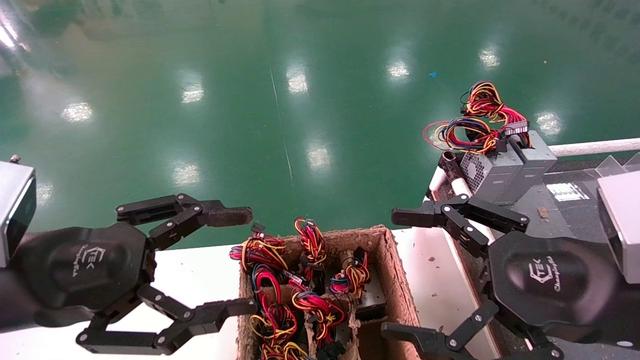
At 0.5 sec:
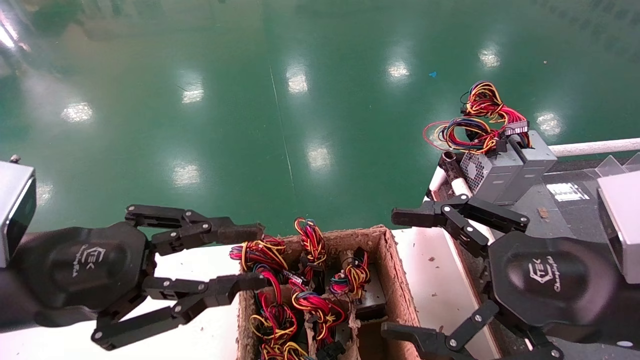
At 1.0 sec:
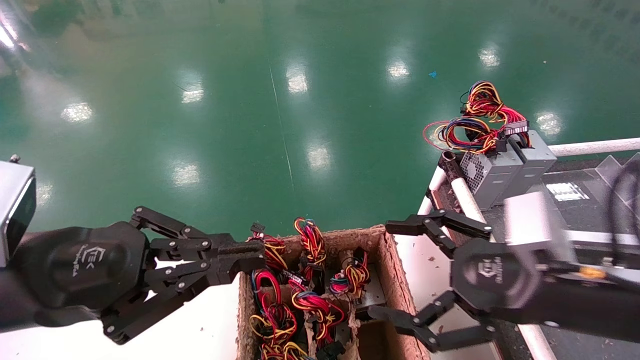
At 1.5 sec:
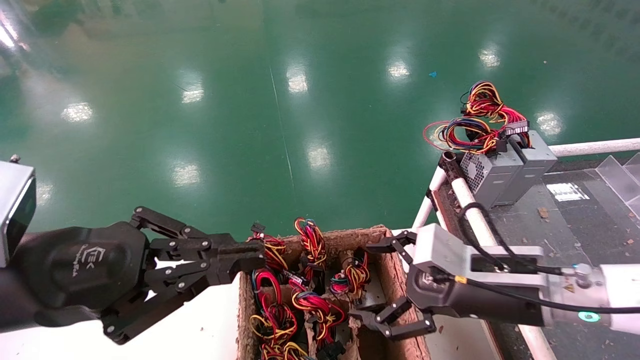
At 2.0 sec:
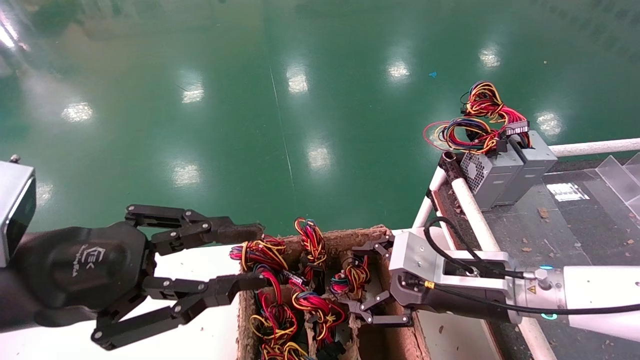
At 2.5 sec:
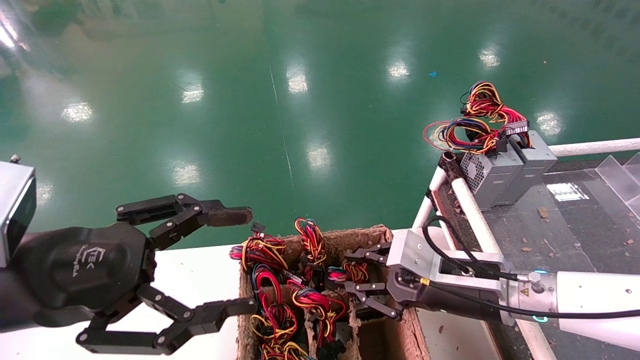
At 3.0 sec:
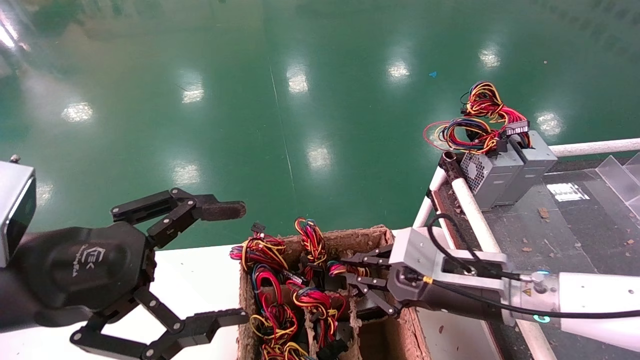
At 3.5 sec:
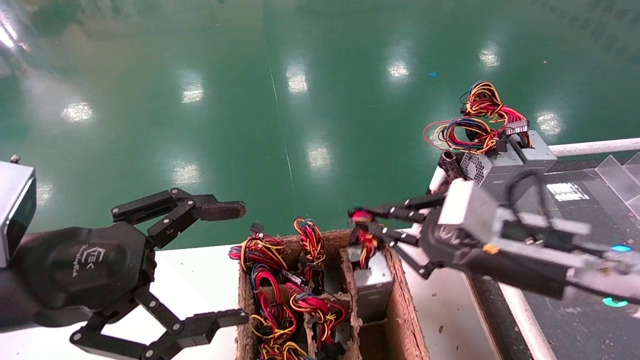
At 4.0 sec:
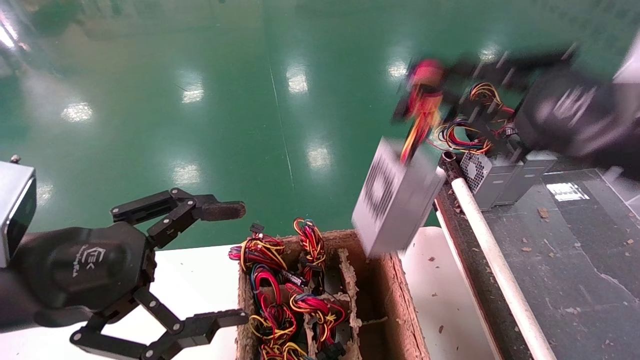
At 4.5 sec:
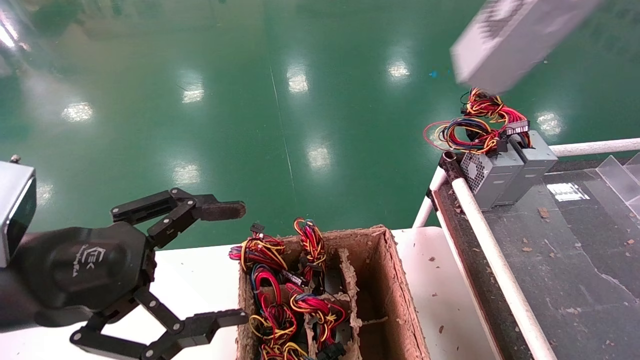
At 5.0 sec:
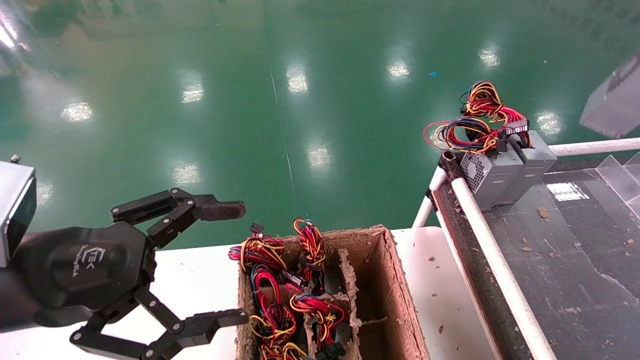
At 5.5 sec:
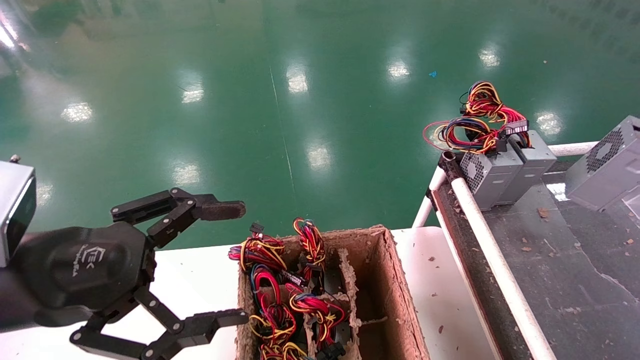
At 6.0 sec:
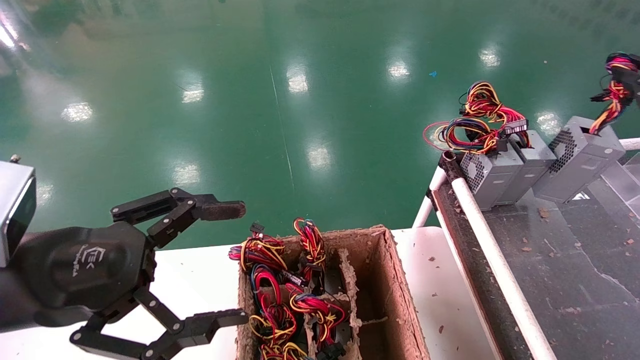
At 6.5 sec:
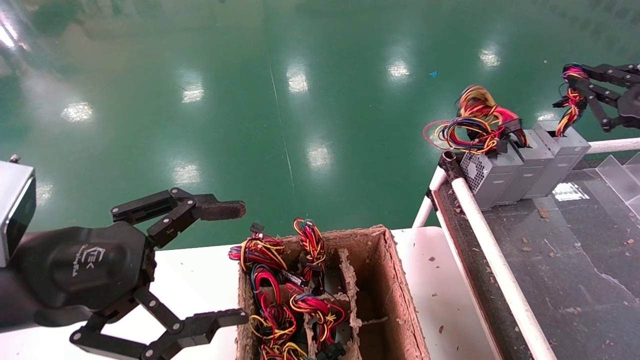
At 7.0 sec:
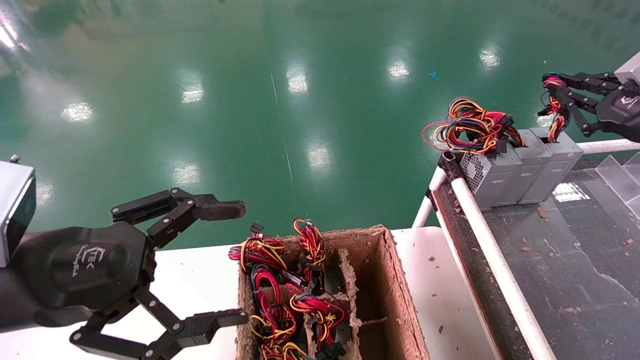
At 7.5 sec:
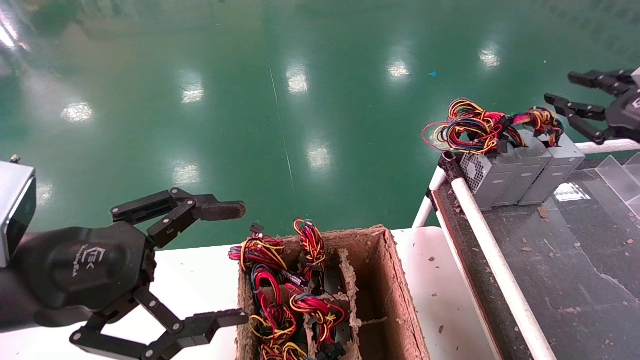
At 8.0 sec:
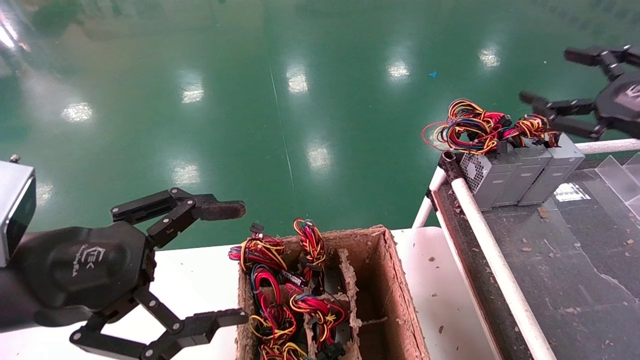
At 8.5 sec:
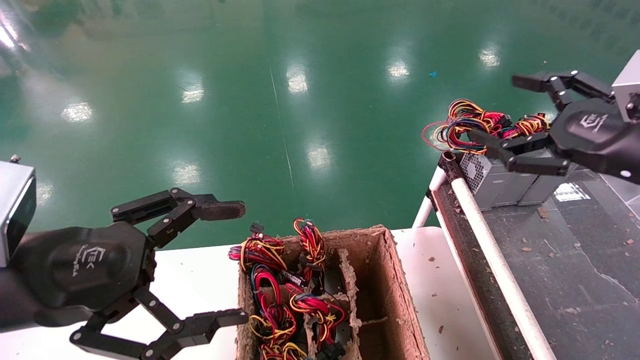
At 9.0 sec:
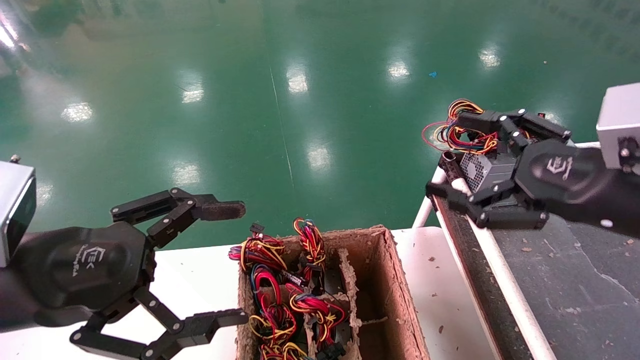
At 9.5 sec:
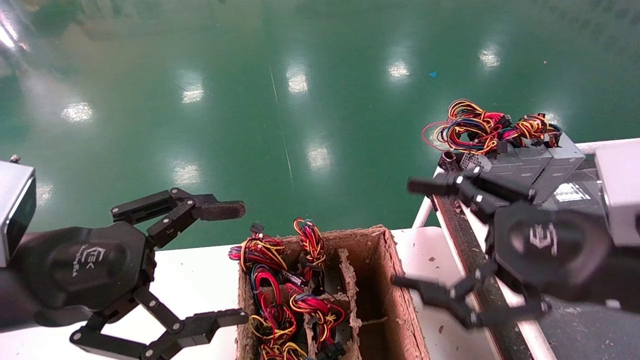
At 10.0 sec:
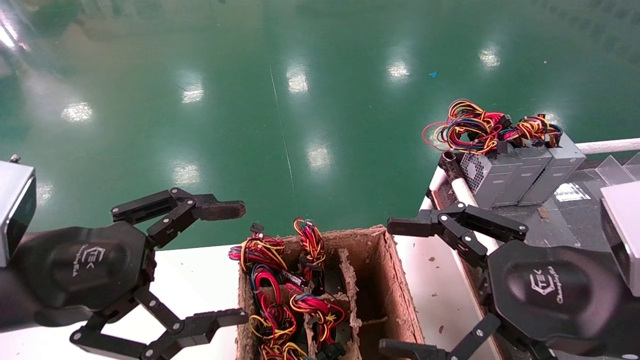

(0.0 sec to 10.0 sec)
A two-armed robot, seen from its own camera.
Step, 1.0 sec - 2.5 sec: Grab and lift the power supply from the large box.
Step, 3.0 sec - 7.0 sec: Place the power supply on the operating table.
0.0 sec - 2.0 sec: The left gripper closes; the right gripper goes roughly 15 cm forward, downward and to the left.
2.0 sec - 4.0 sec: The left gripper opens up. The right gripper is displaced upward, backward and to the right by some 20 cm, and closes.
4.0 sec - 6.0 sec: The right gripper moves to the right, roughly 20 cm.
6.0 sec - 8.0 sec: The right gripper is displaced to the left by roughly 5 cm, and opens.
8.0 sec - 10.0 sec: The right gripper shifts about 20 cm to the left, backward and downward, and opens its fingers.

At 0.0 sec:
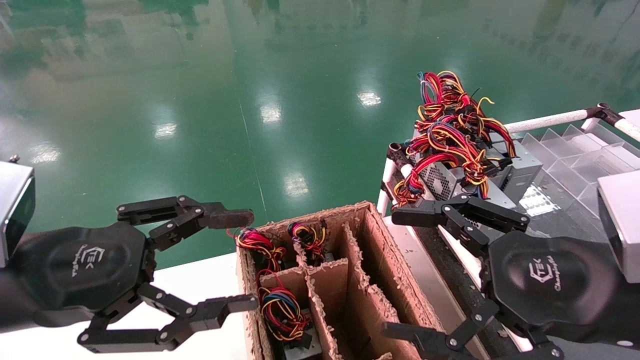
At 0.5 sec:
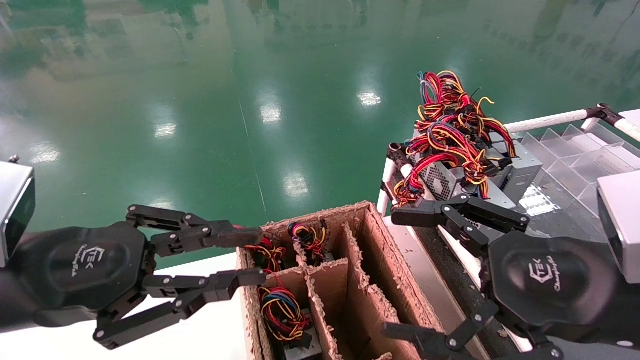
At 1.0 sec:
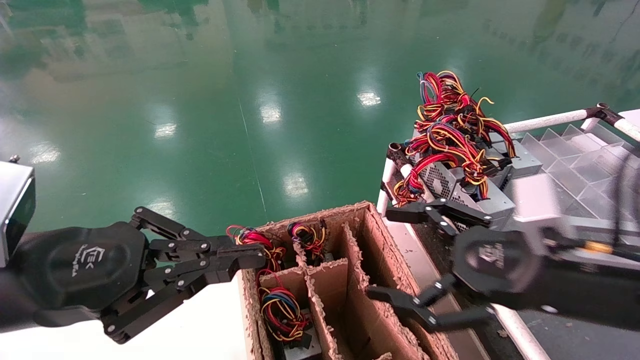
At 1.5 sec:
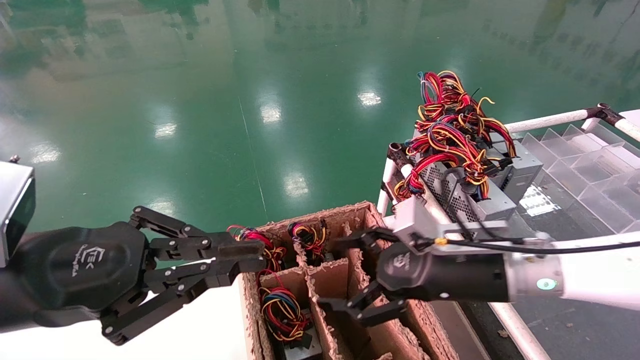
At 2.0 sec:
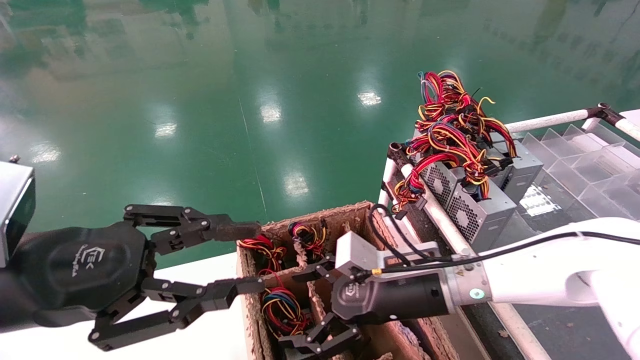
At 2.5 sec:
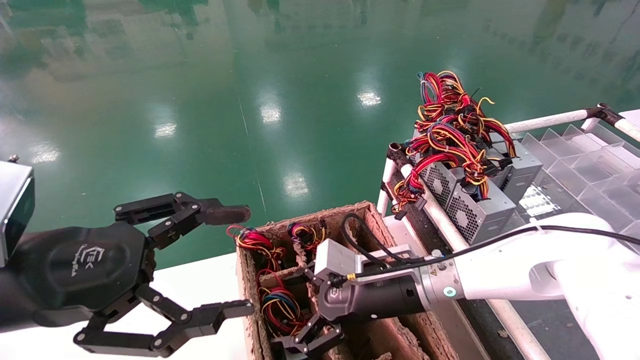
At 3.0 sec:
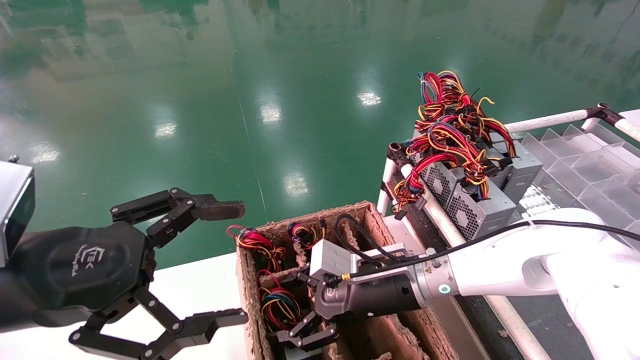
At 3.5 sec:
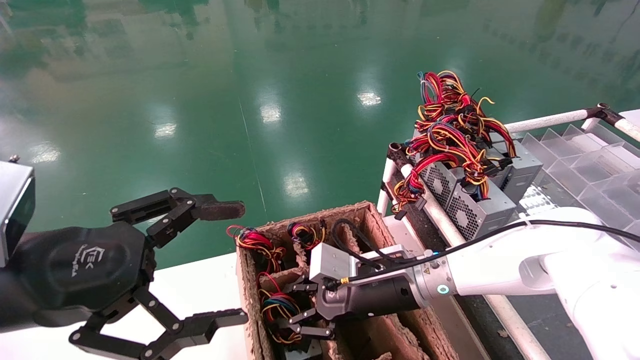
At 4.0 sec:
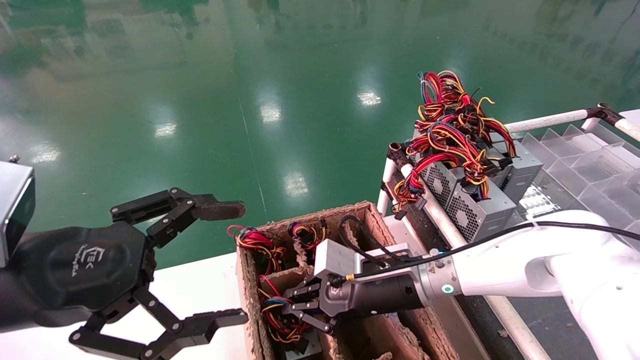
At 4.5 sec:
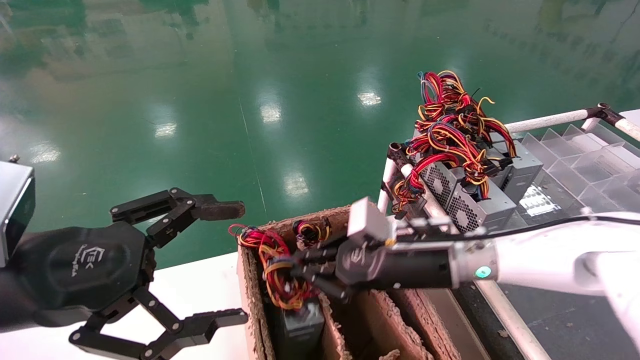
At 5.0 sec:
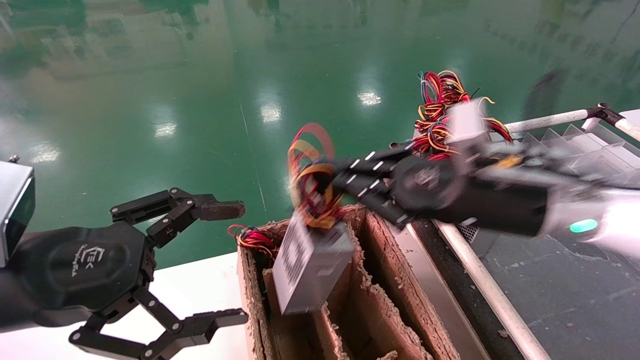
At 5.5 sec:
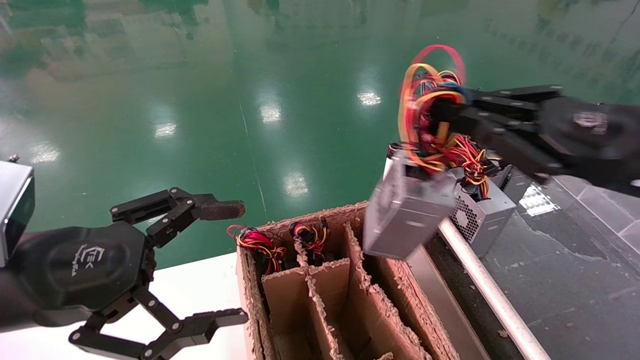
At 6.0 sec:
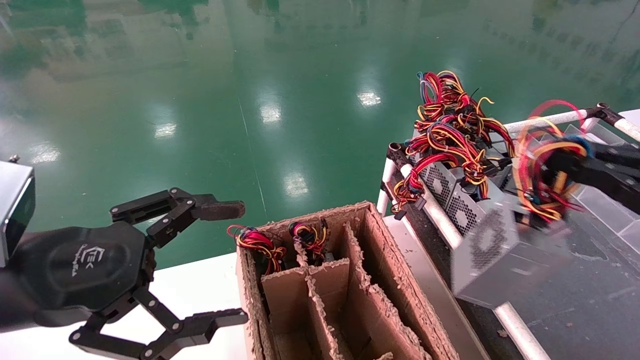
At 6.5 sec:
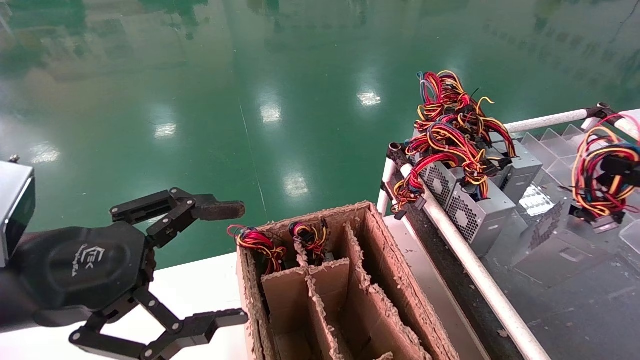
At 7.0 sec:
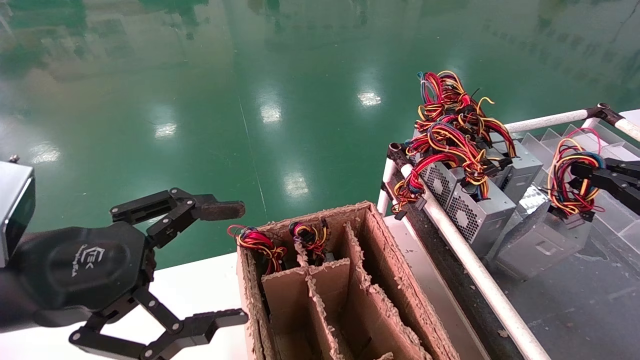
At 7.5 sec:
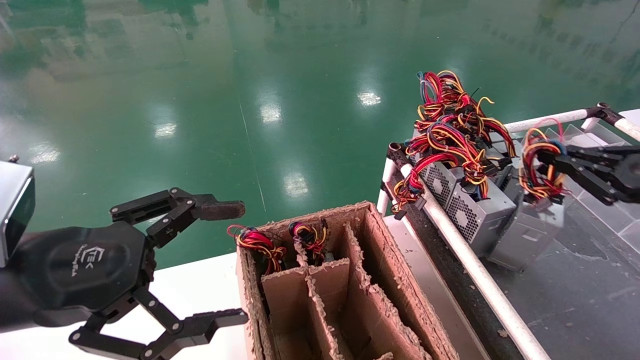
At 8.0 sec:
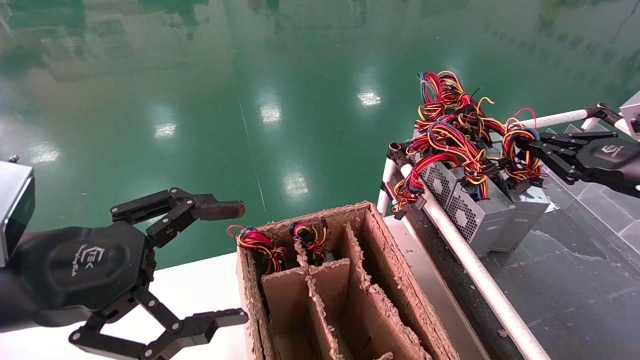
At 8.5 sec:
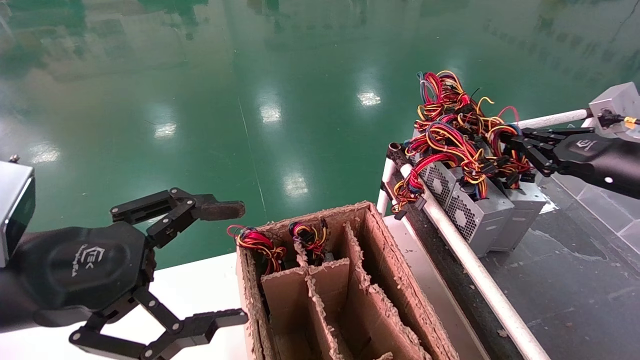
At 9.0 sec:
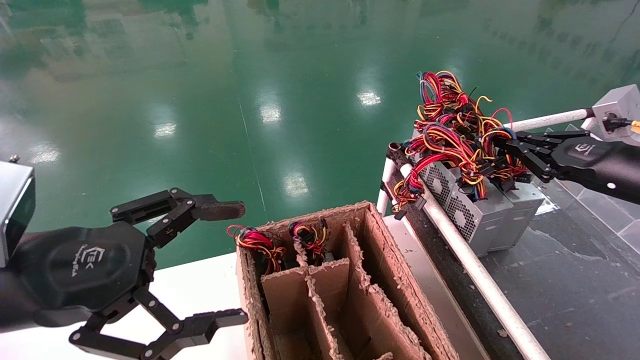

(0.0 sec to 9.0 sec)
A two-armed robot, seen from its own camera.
Step, 1.5 sec - 4.0 sec: Grab and lift the power supply from the large box.
0.0 sec - 2.0 sec: The right gripper moves forward, to the left and downward, about 25 cm. The left gripper closes up.
2.0 sec - 4.5 sec: The left gripper opens its fingers. Meanwhile the right gripper closes.
4.5 sec - 7.0 sec: The right gripper heads to the right, covering some 35 cm.
7.0 sec - 9.0 sec: The right gripper is displaced forward and to the left by approximately 10 cm.

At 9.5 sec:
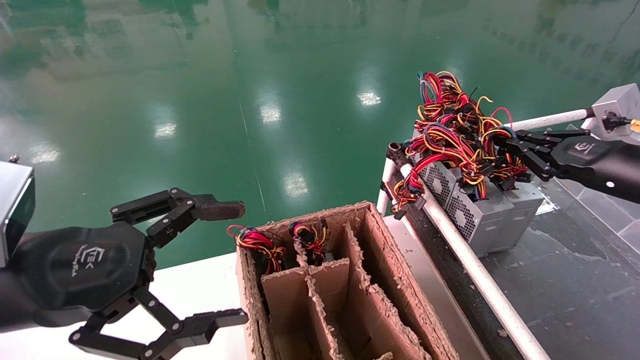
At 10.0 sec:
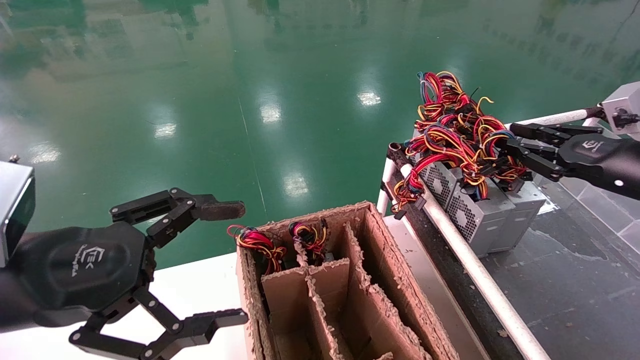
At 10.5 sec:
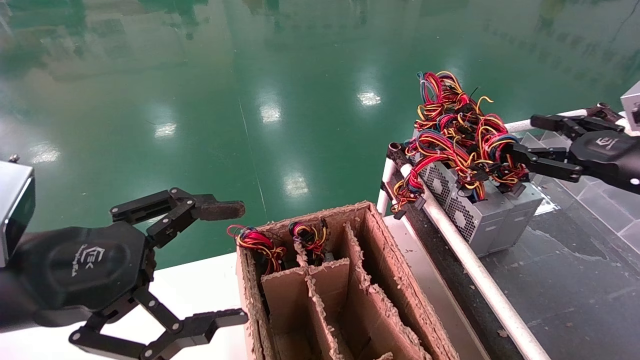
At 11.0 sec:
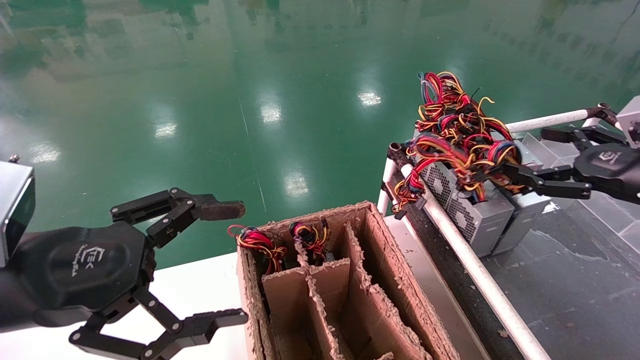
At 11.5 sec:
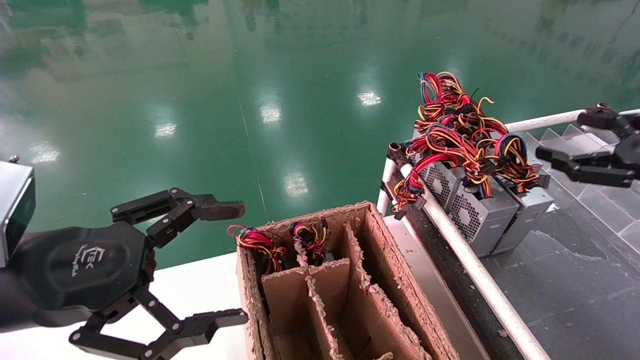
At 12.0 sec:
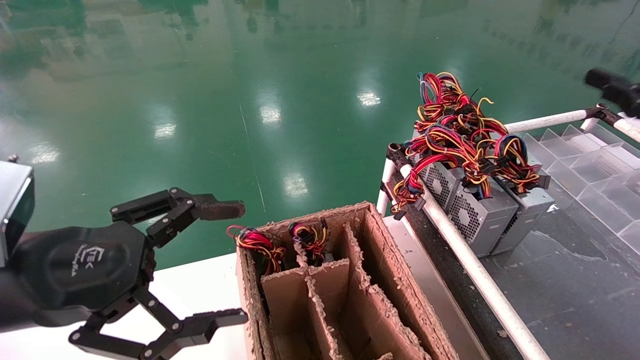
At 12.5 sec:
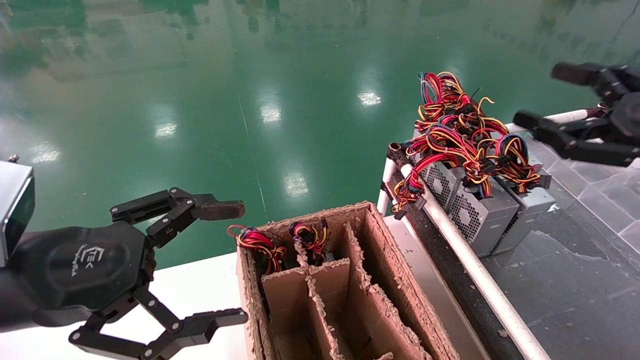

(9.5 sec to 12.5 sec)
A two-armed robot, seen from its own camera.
9.5 sec - 11.0 sec: The right gripper opens up.
11.0 sec - 12.5 sec: The right gripper goes roughly 5 cm backward.
